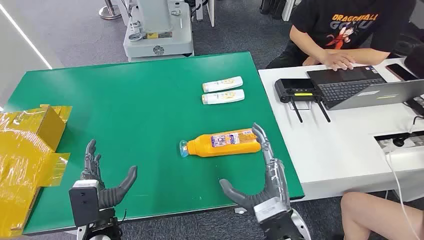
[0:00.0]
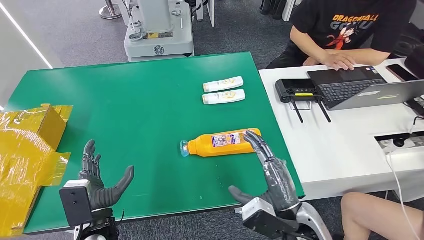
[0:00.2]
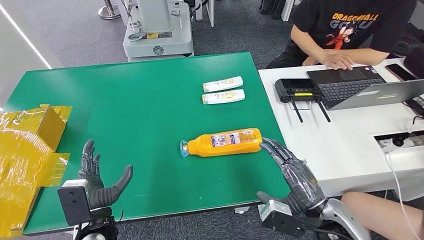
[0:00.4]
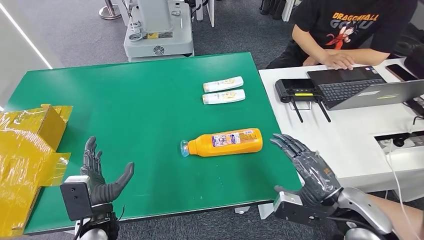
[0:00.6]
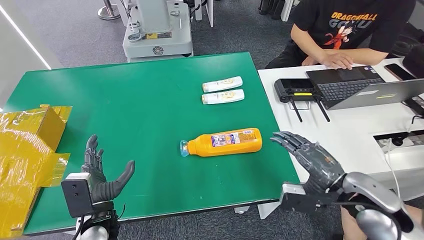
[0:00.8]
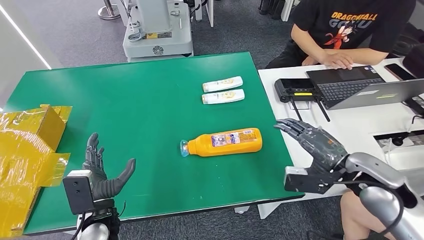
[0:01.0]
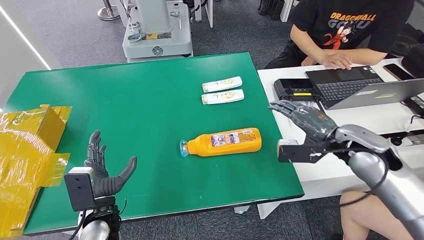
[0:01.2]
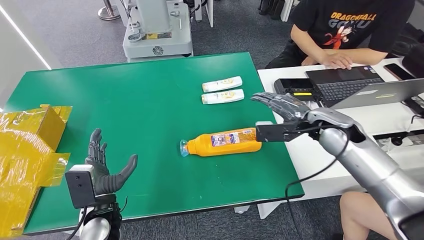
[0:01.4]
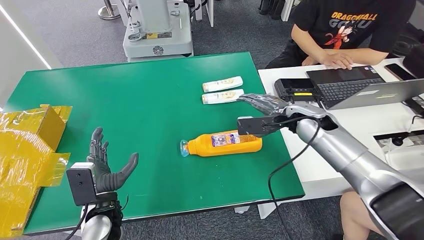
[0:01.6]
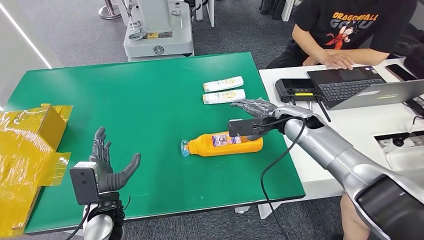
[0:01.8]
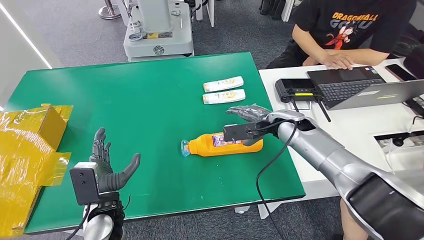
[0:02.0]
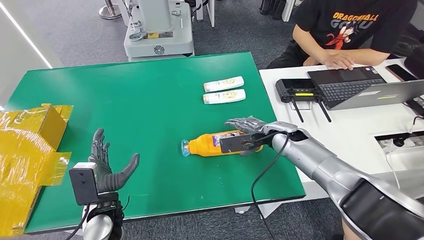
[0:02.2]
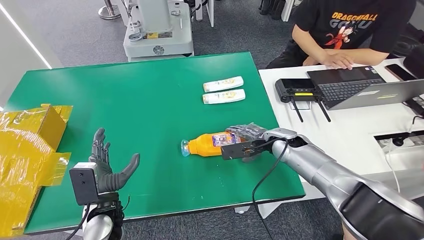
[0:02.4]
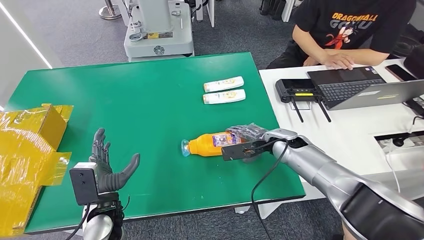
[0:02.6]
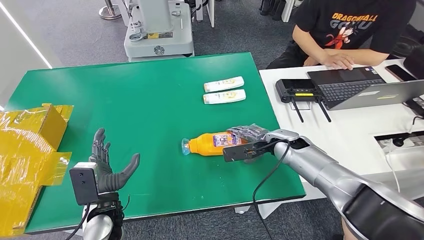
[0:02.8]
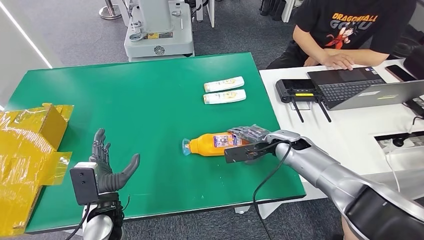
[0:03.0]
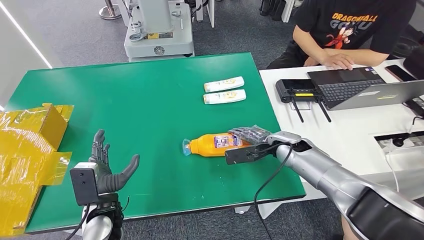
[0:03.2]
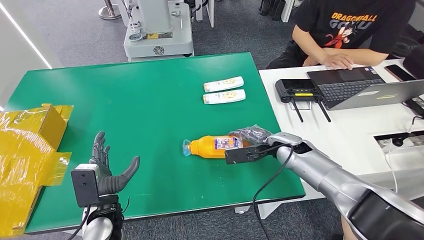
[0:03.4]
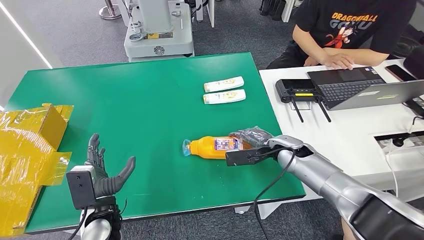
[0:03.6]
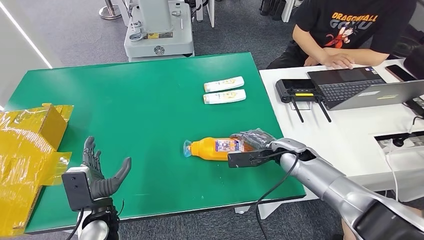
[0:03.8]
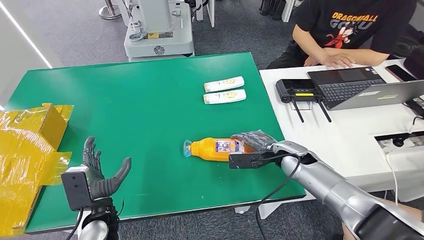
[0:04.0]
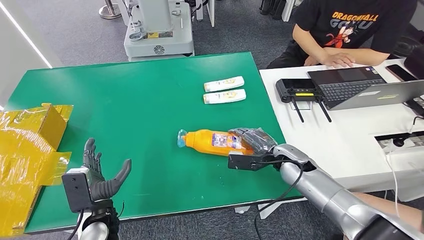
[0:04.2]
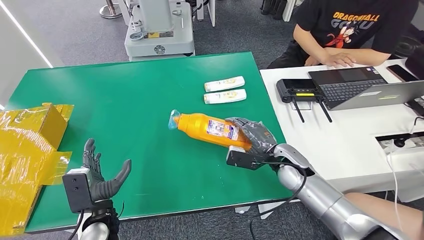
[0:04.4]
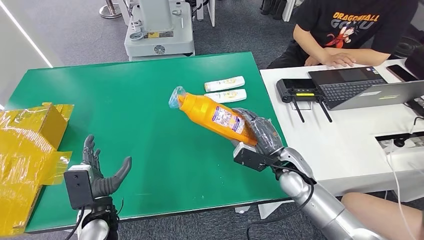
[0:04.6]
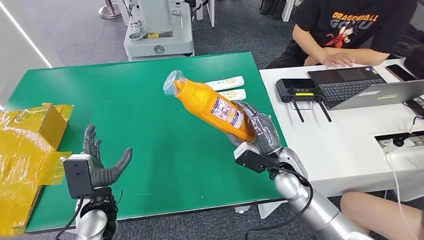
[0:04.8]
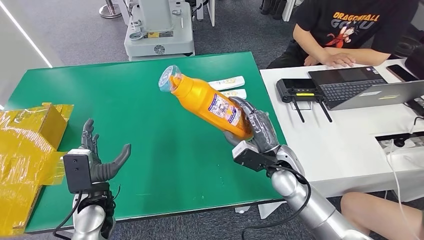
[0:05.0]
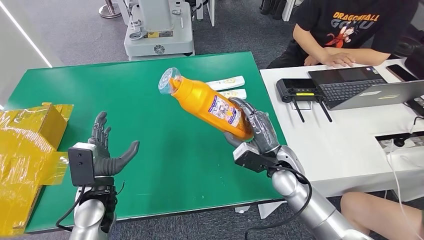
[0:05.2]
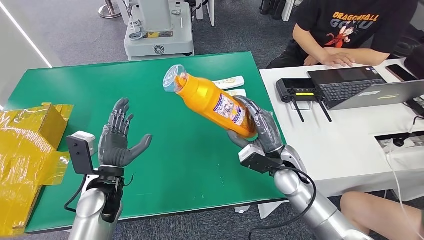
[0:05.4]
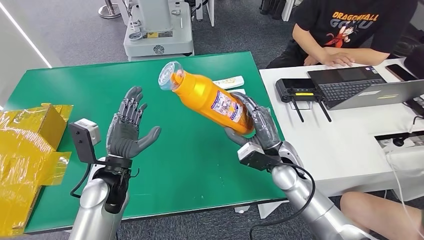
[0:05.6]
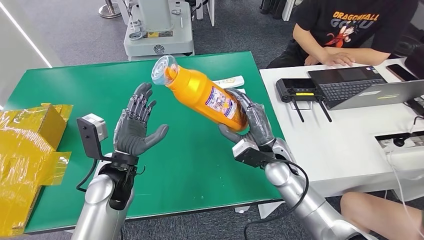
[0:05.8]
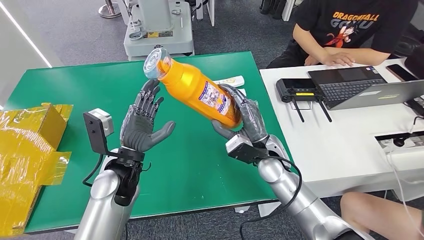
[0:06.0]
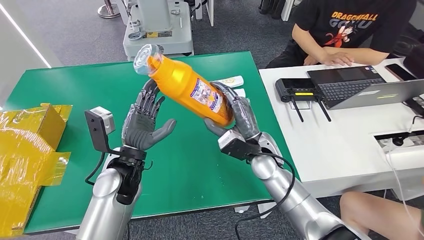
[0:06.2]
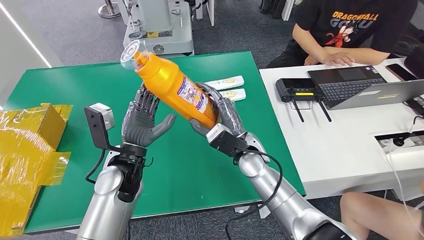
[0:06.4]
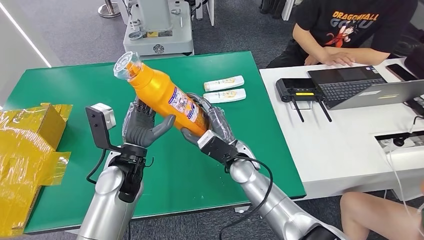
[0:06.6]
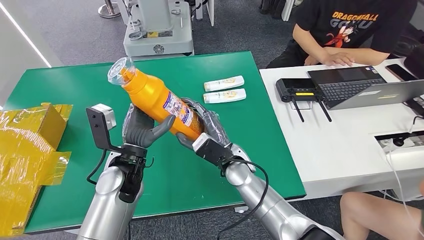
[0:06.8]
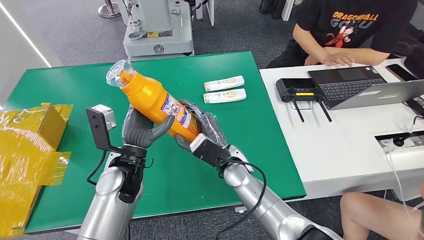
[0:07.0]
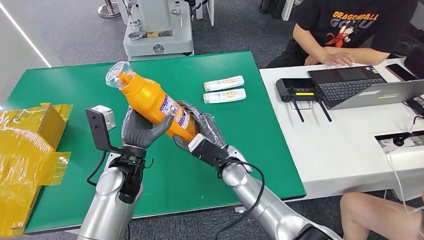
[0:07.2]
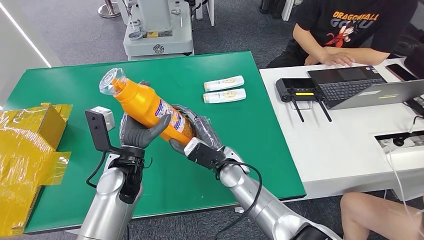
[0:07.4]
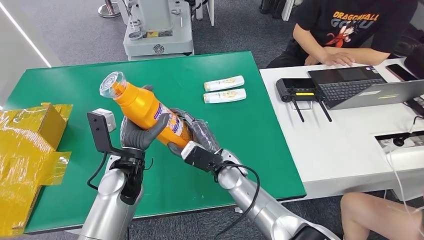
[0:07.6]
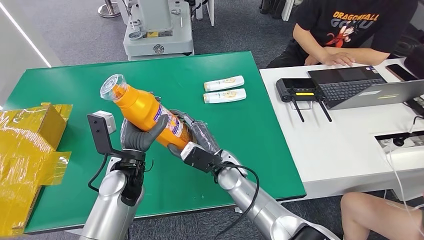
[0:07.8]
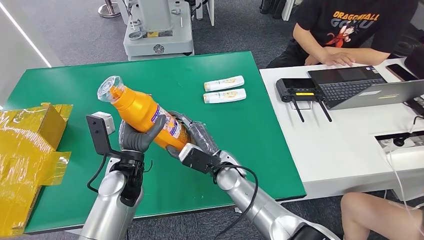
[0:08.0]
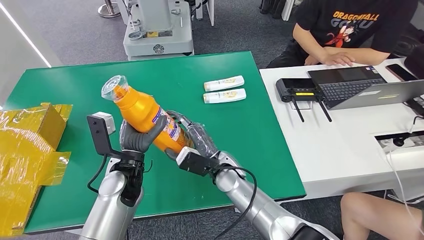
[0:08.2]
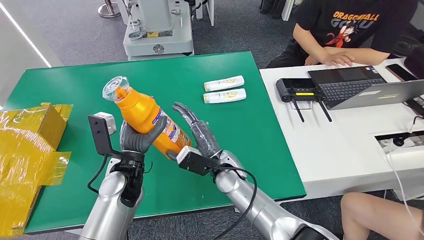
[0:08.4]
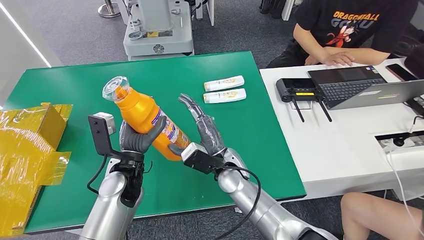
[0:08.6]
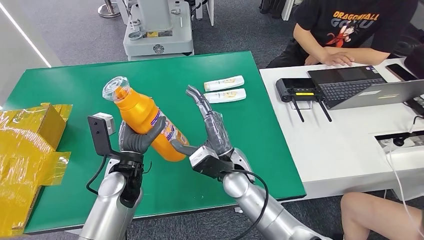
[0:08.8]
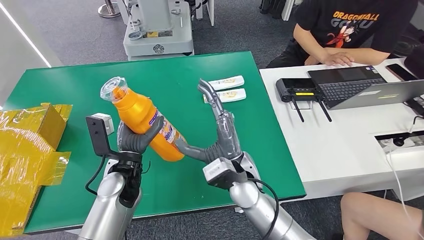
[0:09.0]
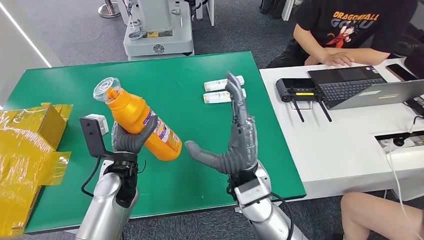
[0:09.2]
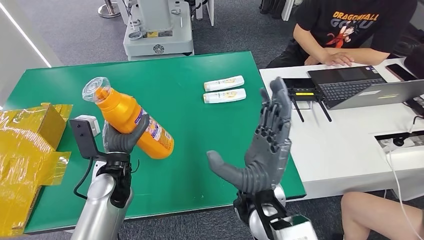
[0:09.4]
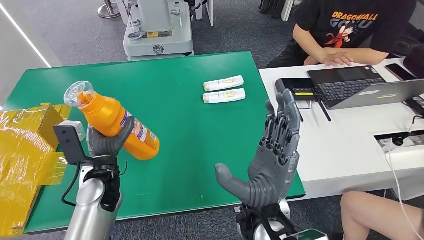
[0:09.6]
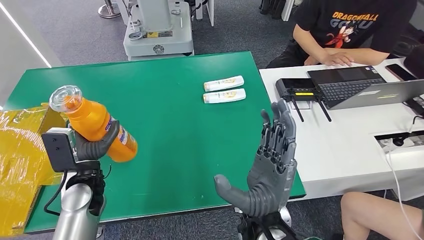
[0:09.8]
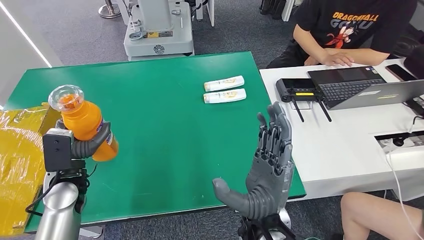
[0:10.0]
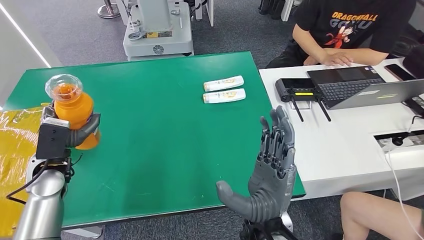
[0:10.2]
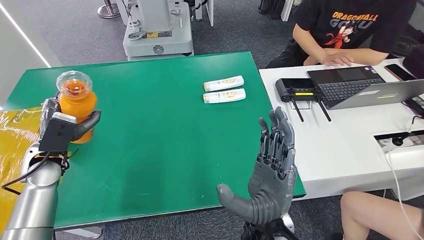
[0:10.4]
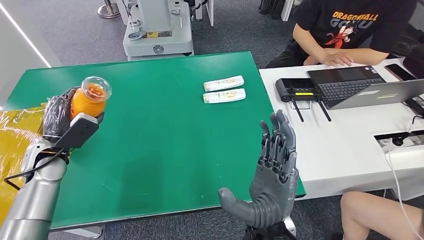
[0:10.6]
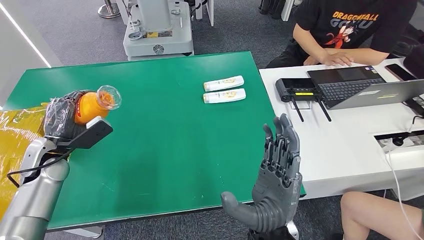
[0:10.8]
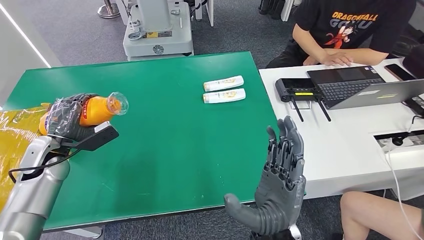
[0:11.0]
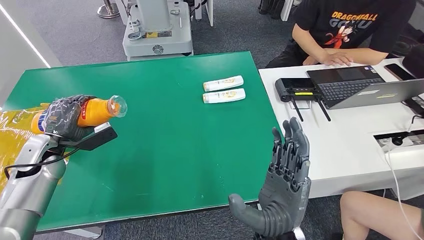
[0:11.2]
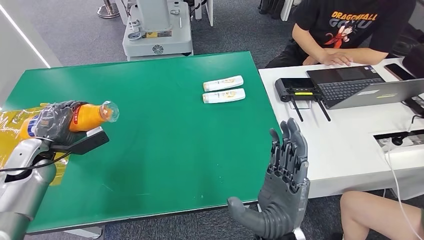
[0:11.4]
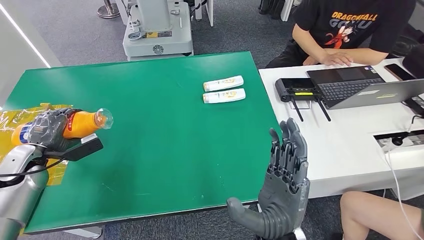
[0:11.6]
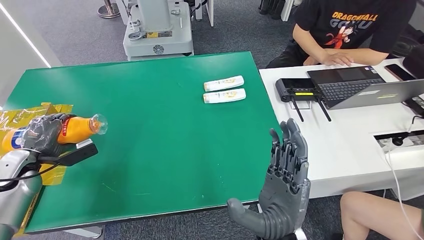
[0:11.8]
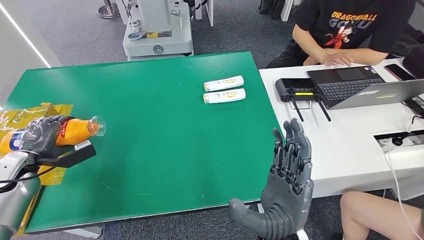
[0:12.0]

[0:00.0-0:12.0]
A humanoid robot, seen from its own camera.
Step, 0:00.0 to 0:04.8: Pick up the bottle from the table.
0:01.6 to 0:03.0: The right hand goes roughly 10 cm downward.
0:03.0 to 0:04.4: The right hand goes some 5 cm backward.
0:06.0 to 0:07.6: The right hand goes approximately 10 cm to the left.
0:07.6 to 0:09.0: The right hand travels upward by about 5 cm.
0:10.4 to 0:12.0: The left hand is displaced to the left by about 10 cm.

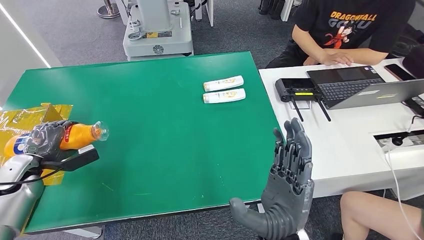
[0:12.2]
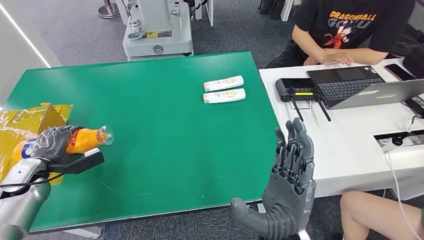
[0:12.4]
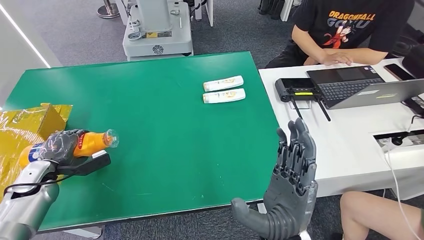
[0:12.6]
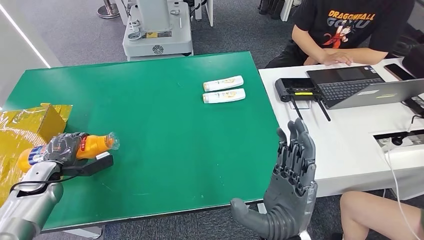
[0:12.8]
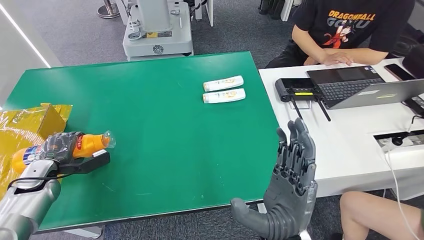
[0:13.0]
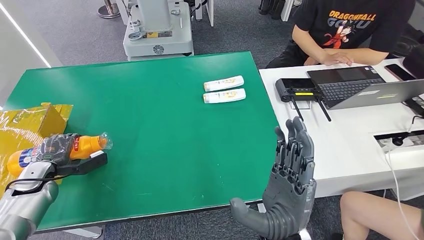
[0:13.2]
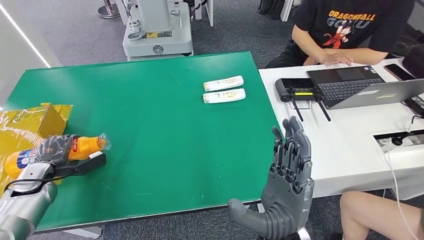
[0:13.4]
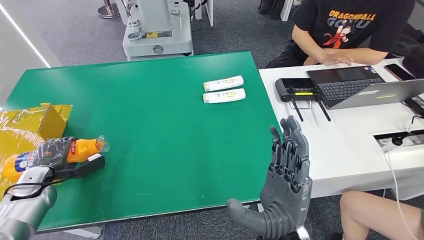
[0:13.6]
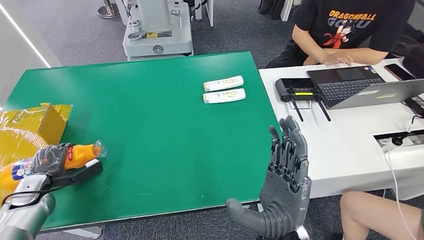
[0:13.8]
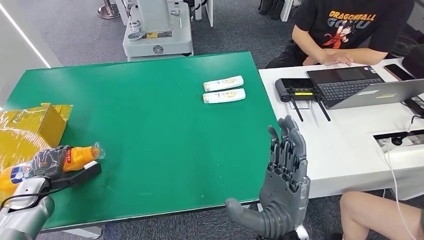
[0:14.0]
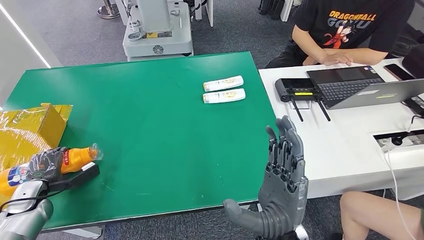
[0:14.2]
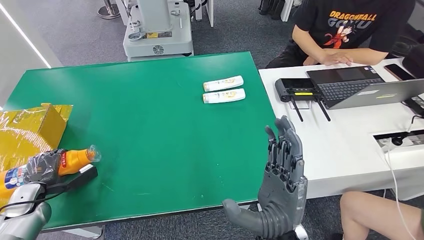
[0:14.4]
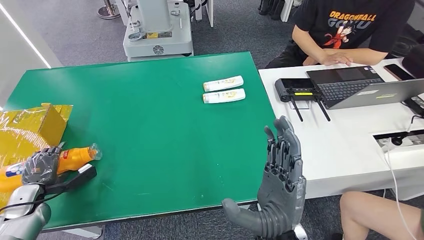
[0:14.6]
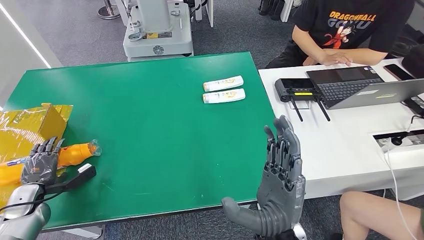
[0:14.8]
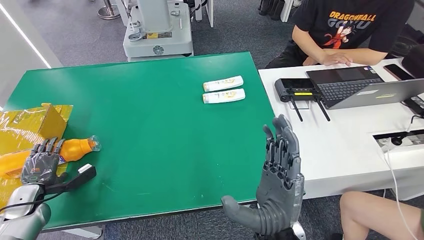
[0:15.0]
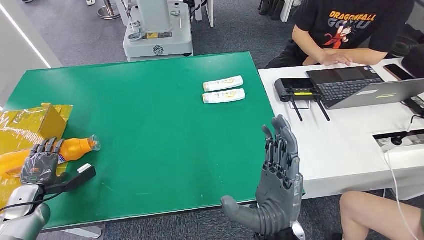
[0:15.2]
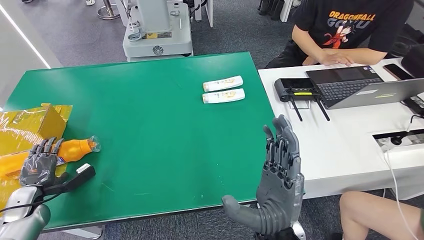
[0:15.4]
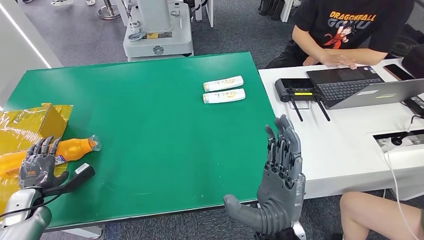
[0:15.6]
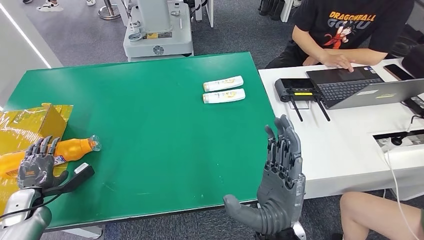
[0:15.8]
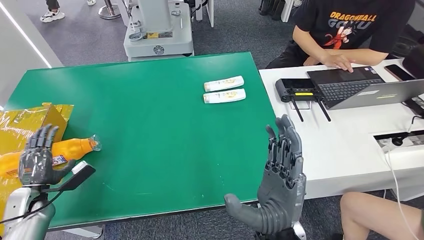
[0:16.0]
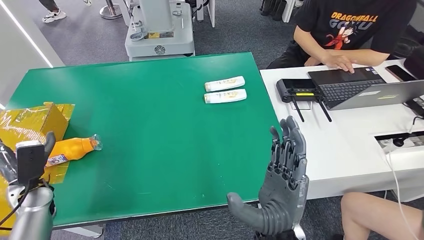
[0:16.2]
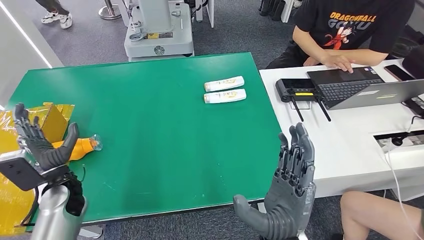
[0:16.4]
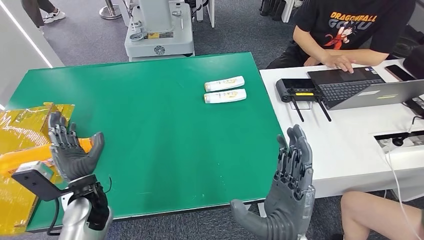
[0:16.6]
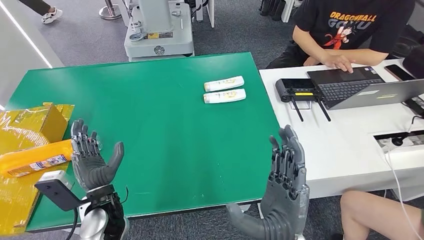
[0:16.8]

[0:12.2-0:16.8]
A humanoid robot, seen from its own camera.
Step, 0:12.2 to 0:16.8: Turn the bottle to the front side.
0:12.2 to 0:13.8: The left hand goes roughly 5 cm downward.
0:13.8 to 0:15.2: The hands stay close to where they were, moving slightly.
0:15.2 to 0:16.8: The left hand shifts about 30 cm to the right.
